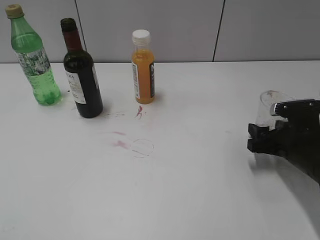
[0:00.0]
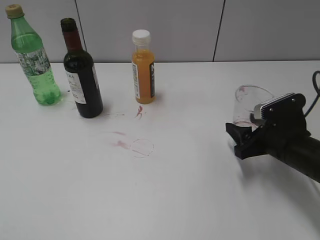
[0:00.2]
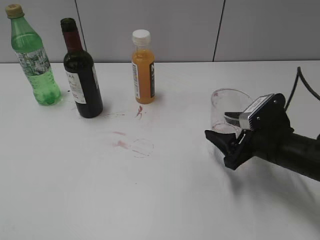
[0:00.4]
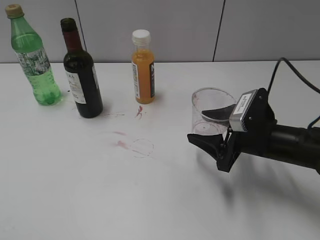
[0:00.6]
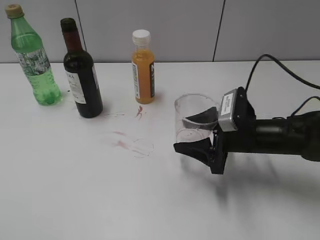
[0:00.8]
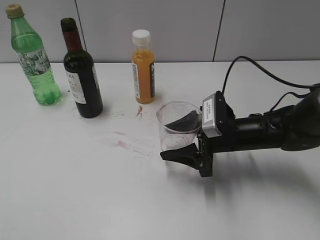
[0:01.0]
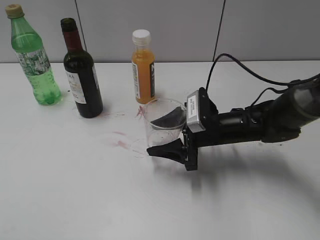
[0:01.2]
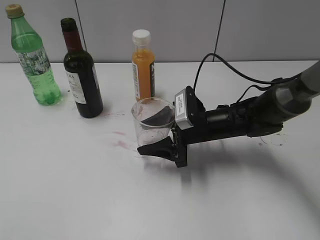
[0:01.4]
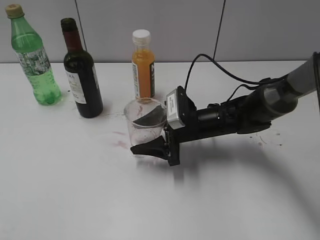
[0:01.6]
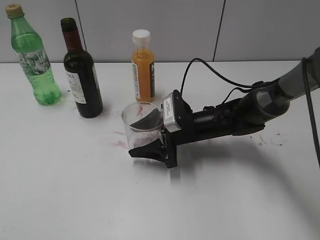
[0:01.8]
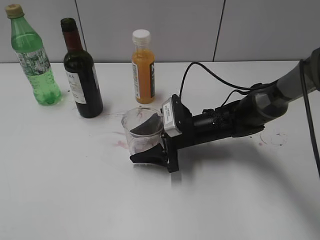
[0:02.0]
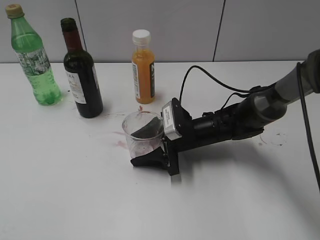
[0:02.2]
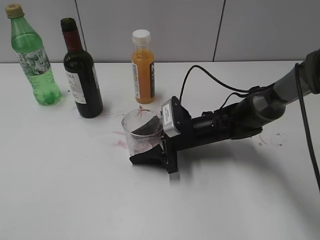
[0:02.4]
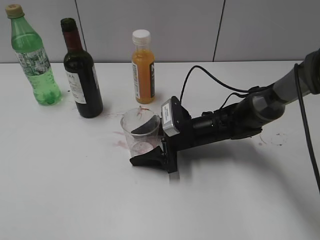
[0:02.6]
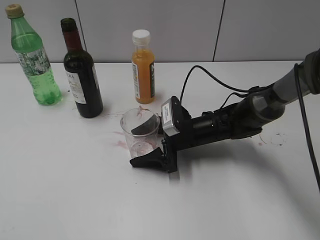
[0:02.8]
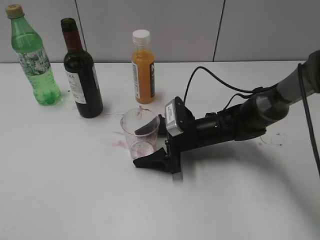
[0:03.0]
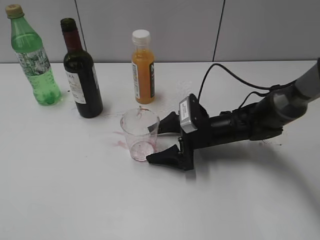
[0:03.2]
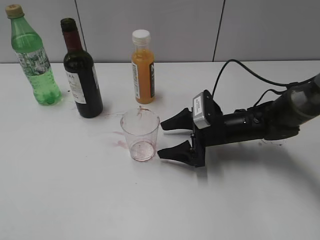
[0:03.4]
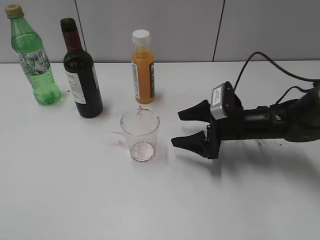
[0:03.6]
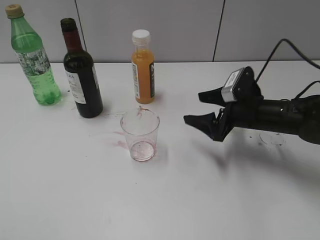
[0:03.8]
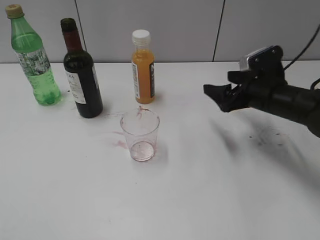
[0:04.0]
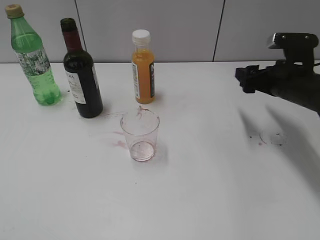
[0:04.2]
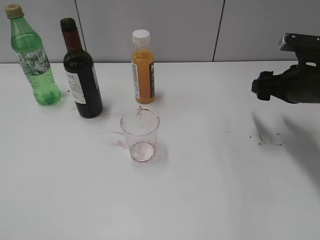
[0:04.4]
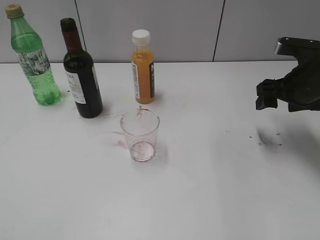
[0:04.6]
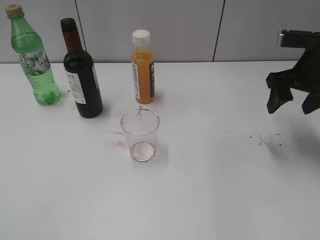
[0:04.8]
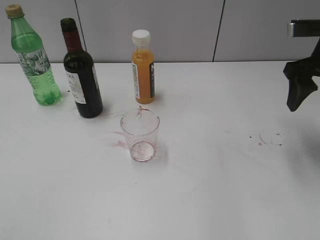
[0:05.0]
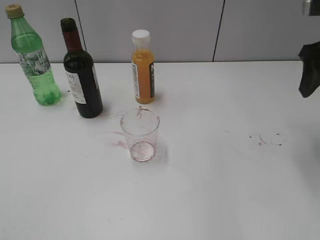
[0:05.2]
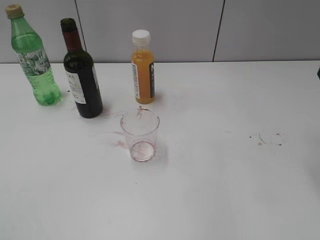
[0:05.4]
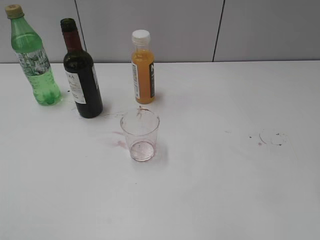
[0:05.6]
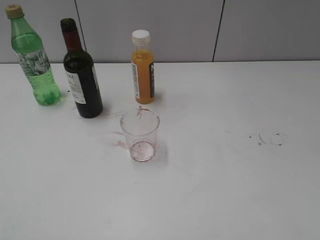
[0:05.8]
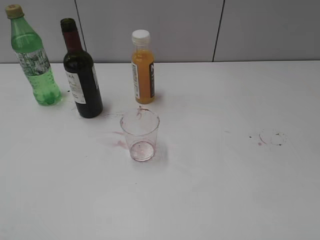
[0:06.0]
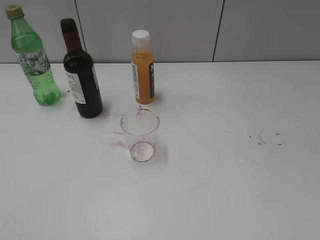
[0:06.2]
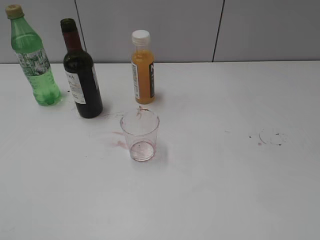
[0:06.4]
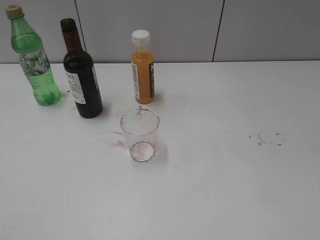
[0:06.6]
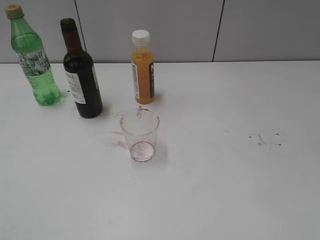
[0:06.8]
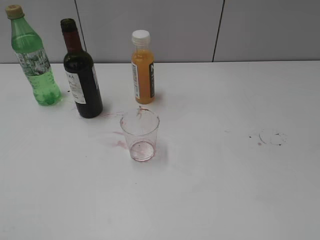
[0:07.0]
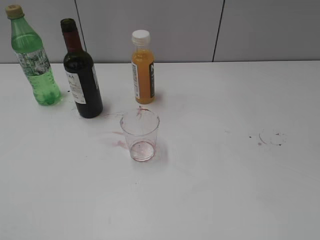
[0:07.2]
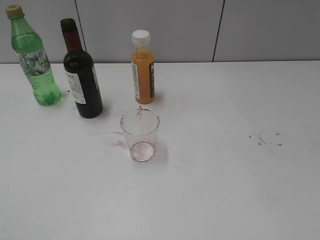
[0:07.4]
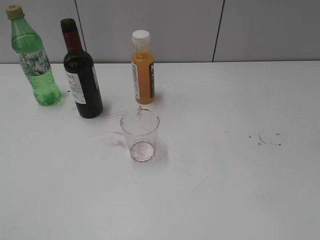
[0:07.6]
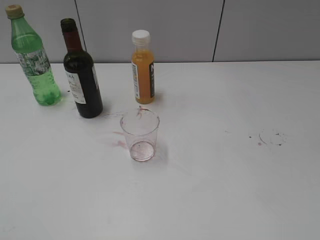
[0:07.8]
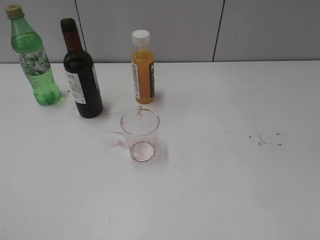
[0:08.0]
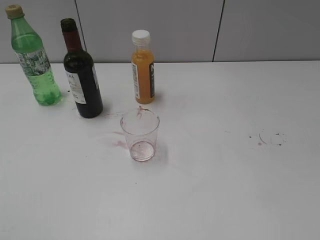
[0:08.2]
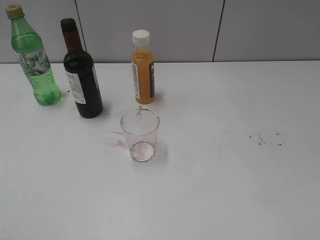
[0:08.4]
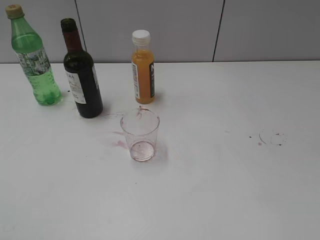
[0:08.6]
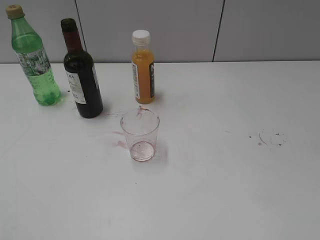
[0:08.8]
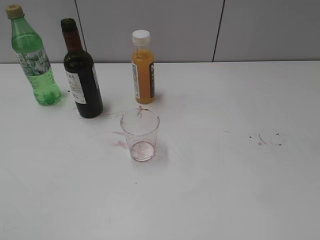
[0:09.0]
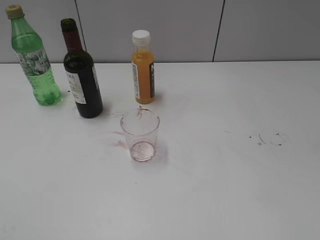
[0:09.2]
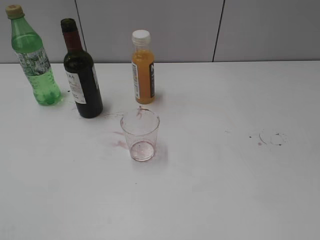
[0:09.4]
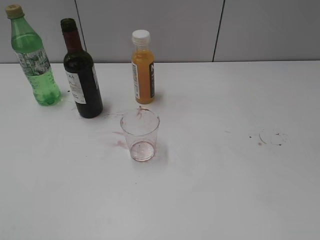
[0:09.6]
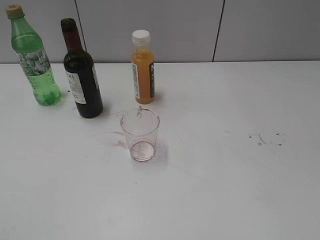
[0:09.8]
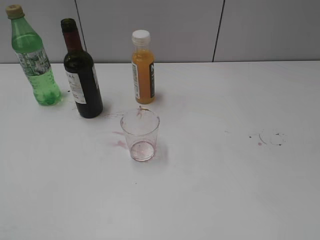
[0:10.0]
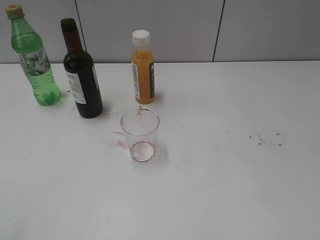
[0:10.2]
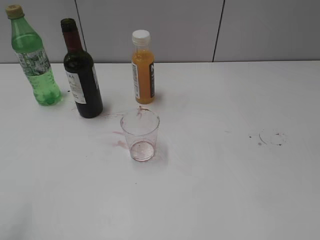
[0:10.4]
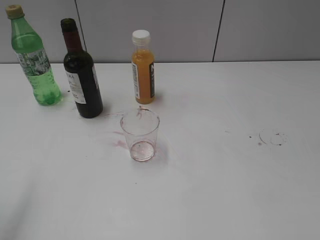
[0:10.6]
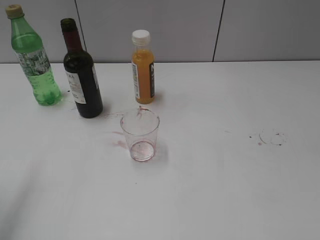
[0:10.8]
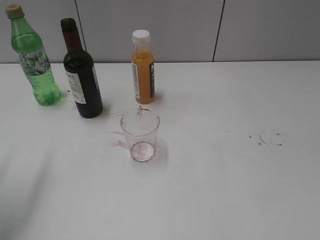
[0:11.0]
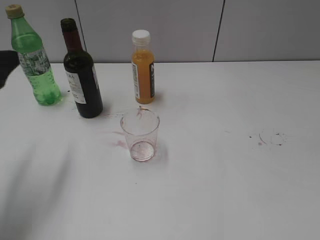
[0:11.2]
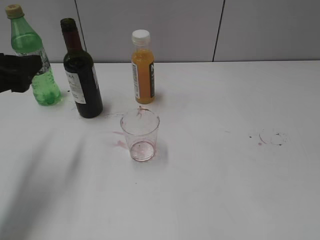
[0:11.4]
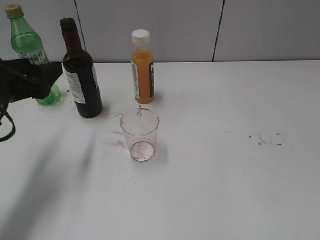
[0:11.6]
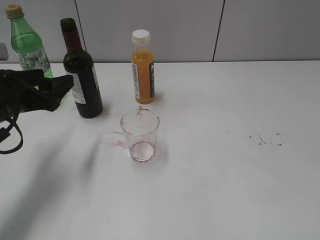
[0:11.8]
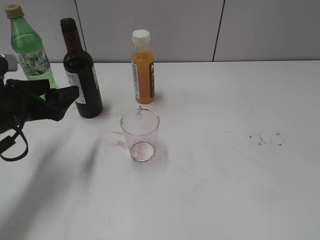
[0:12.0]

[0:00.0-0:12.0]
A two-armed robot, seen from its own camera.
Step, 0:00.0 to 0:03.2: Place the transparent cup on the table with right gripper.
0:00.0 to 0:01.6: The right gripper is displaced to the left by about 15 cm.
0:01.6 to 0:03.0: The right gripper opens its fingers.
0:03.0 to 0:04.4: The right gripper travels to the right and upward by roughly 20 cm.
0:04.4 to 0:06.0: The right gripper heads backward and upward, covering roughly 25 cm.
0:07.6 to 0:09.0: Neither gripper changes place.
0:10.4 to 0:12.0: The left gripper is displaced forward and downward by approximately 25 cm.

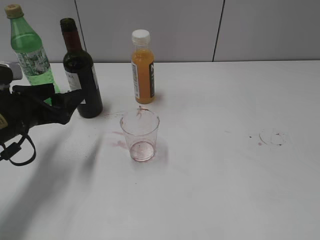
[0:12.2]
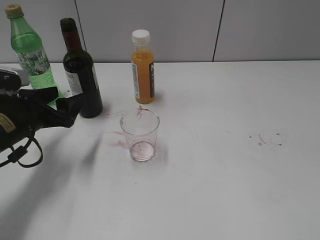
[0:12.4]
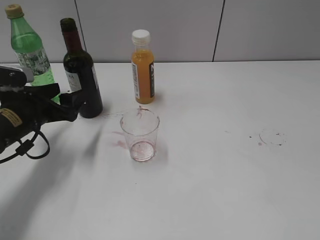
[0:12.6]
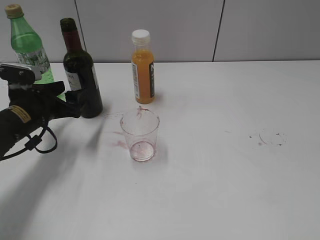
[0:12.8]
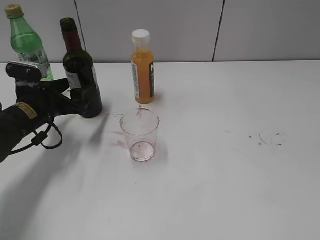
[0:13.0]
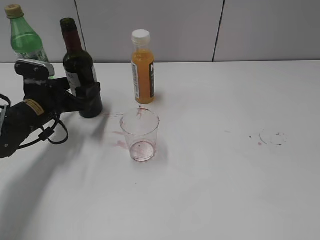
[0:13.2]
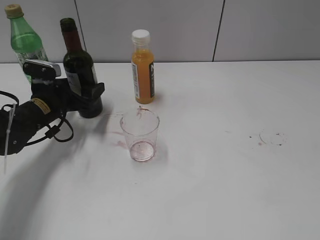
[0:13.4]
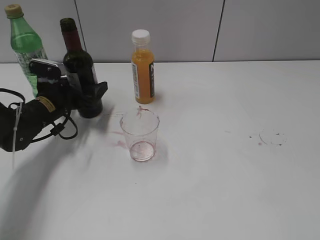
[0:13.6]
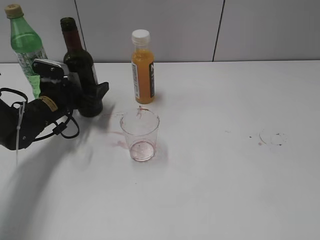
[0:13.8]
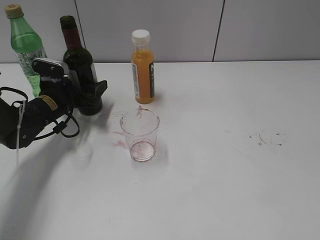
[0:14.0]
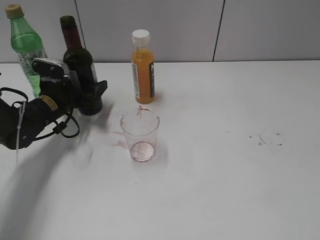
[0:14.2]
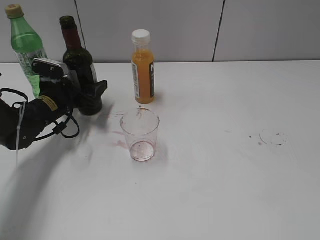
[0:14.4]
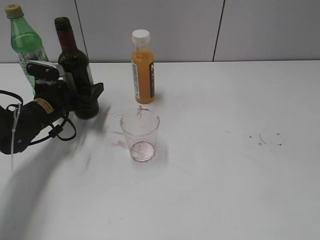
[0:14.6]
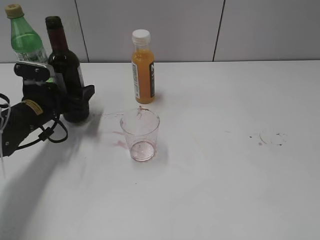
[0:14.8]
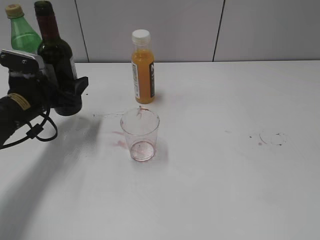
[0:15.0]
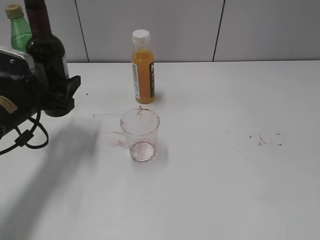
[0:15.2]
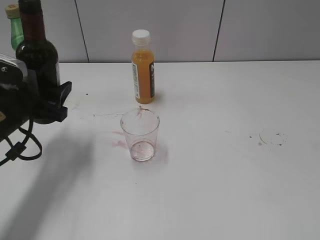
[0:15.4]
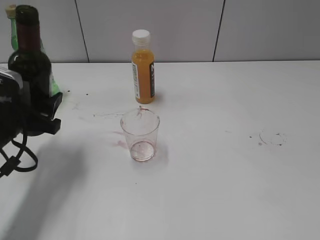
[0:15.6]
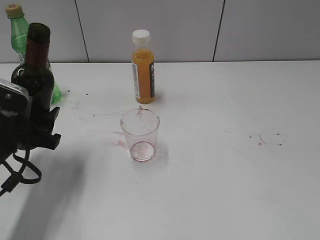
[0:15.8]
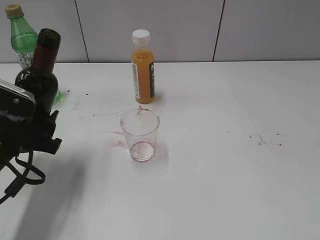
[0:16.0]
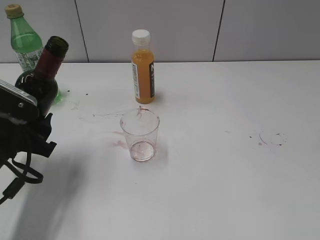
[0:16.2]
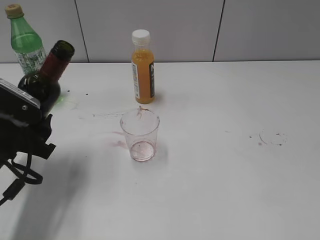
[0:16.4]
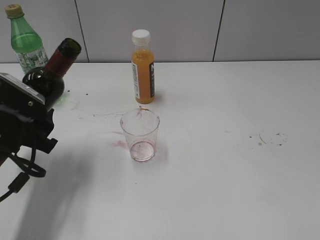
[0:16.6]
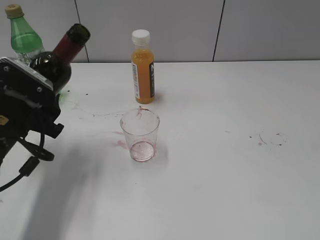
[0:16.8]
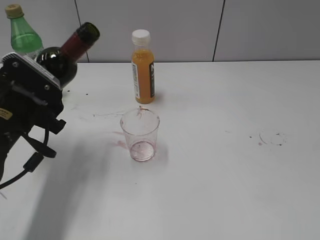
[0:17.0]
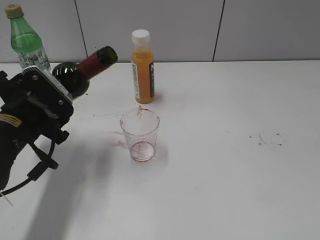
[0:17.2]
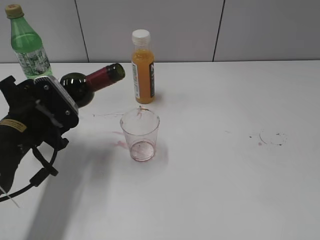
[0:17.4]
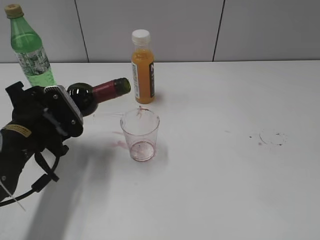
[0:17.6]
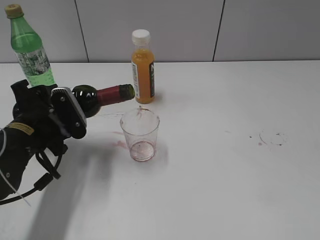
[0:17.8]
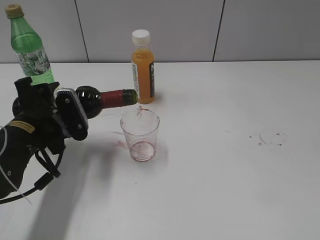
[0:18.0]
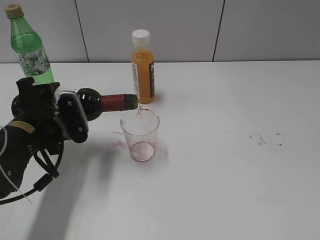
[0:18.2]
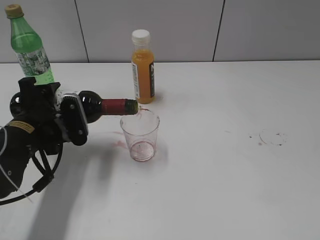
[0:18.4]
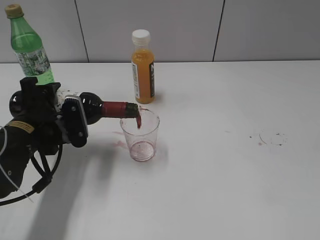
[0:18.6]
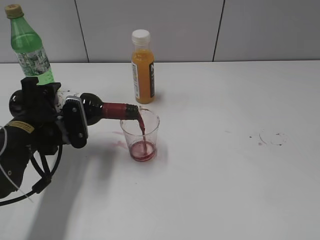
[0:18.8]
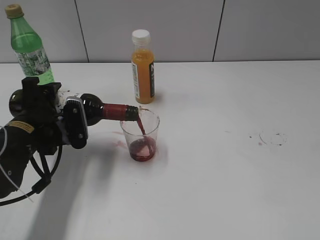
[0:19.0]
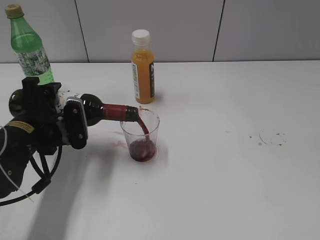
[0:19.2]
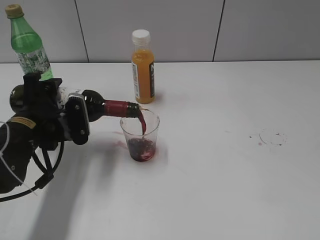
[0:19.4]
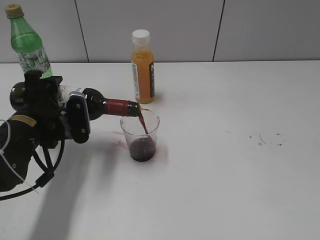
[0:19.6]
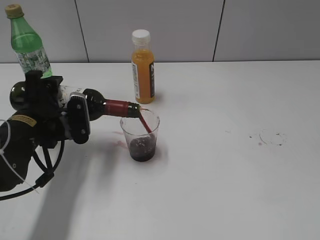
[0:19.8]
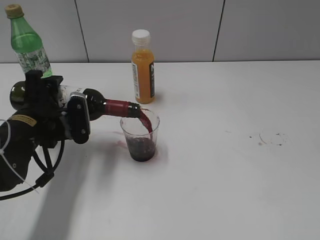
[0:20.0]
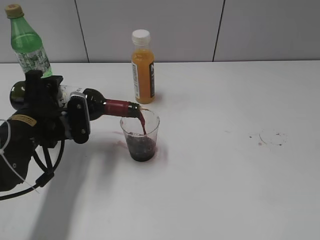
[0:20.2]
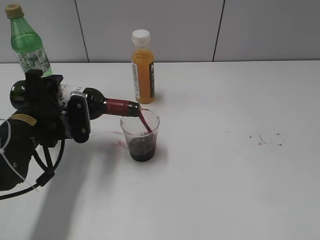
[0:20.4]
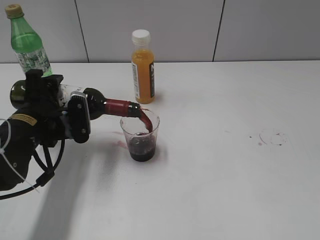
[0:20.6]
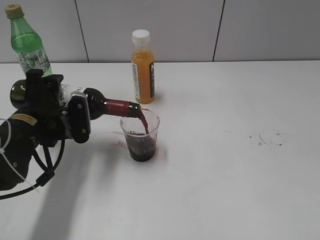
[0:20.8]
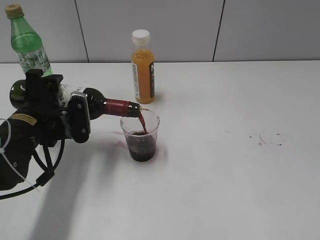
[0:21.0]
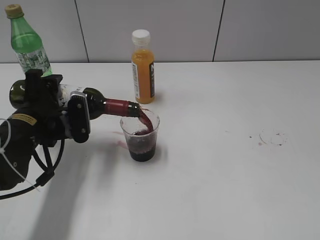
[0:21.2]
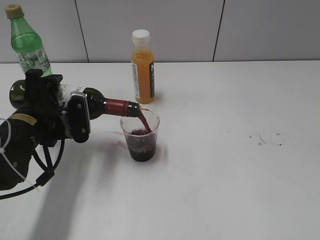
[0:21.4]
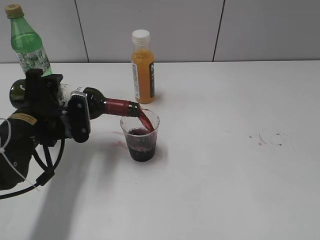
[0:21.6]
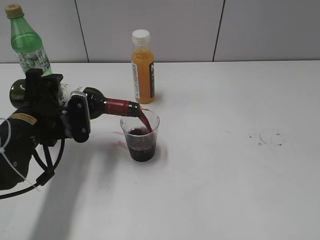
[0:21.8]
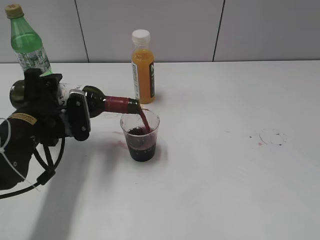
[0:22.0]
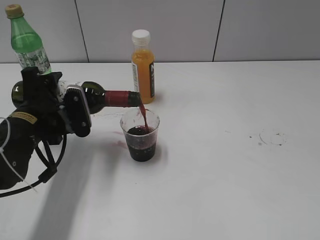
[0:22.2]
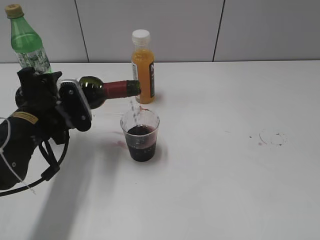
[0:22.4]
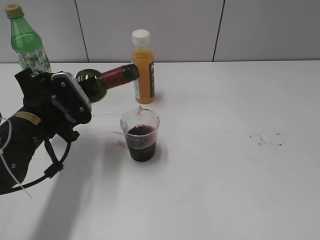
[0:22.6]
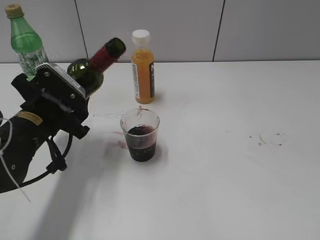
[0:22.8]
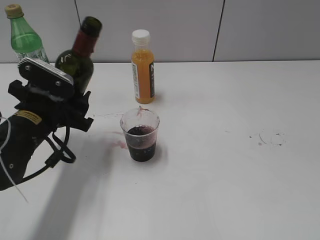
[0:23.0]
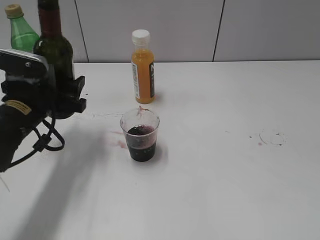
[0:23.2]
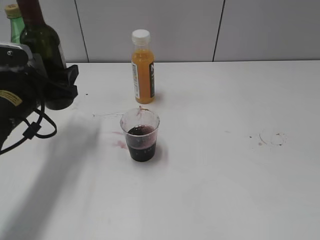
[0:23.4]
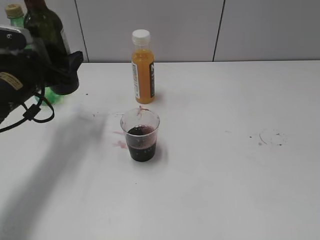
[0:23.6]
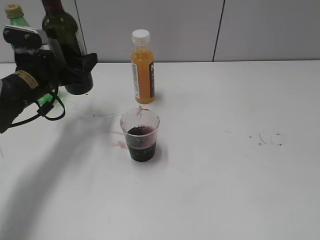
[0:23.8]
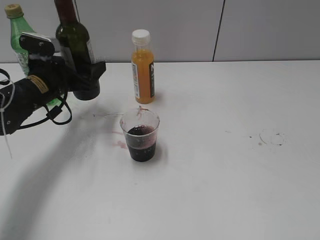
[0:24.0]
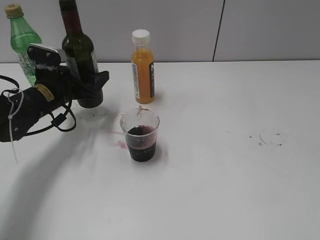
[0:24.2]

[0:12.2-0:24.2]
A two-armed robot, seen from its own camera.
Step, 0:12.2 to 0:14.2: Grasp the bottle with red wine with left gripper.
Step, 0:14.6 to 0:22.6: Pour the red wine from bottle to cup with left gripper.
0:12.2 to 0:13.8: The left gripper heads forward and downward, covering roughly 15 cm.
0:13.8 to 0:15.2: The left gripper heads backward and upward, covering roughly 10 cm.
0:15.2 to 0:16.6: The left gripper travels backward by roughly 5 cm.
0:18.2 to 0:19.8: There are only small adjustments of the grippers.
0:19.8 to 0:21.2: Both grippers stay put.
0:22.6 to 0:24.2: The left gripper is displaced forward by approximately 10 cm.
